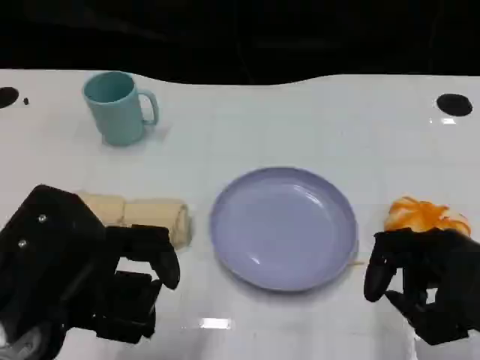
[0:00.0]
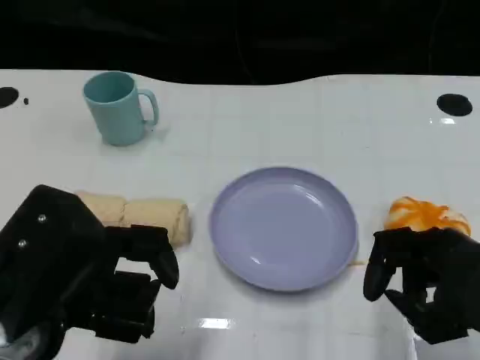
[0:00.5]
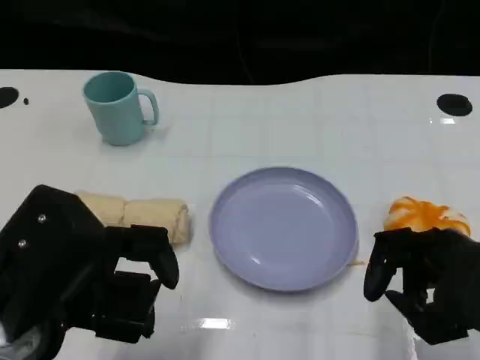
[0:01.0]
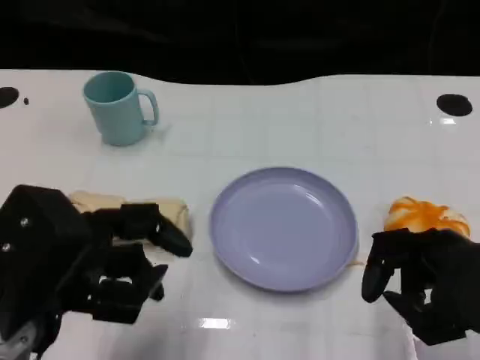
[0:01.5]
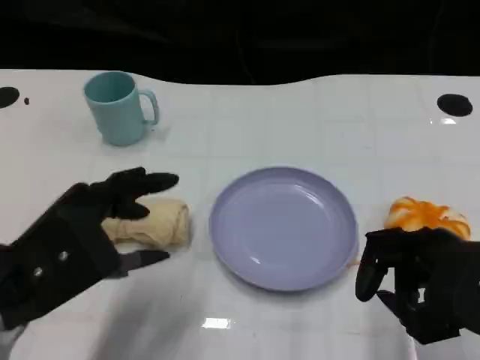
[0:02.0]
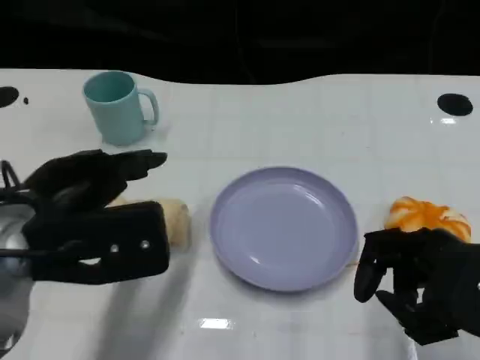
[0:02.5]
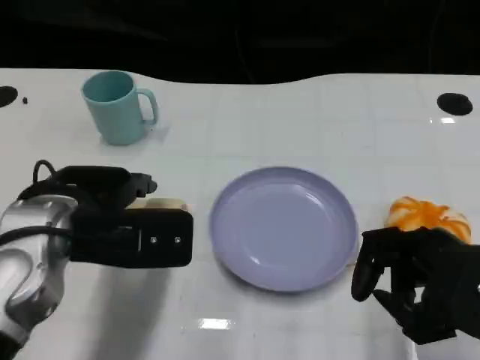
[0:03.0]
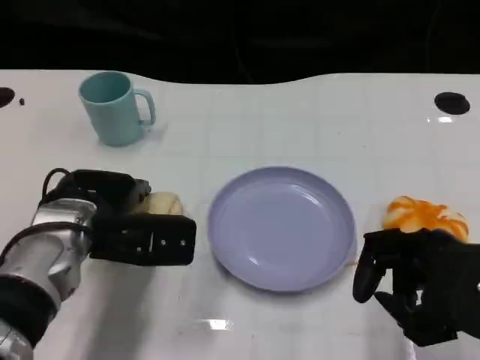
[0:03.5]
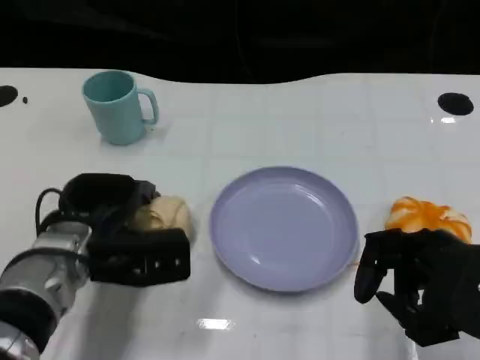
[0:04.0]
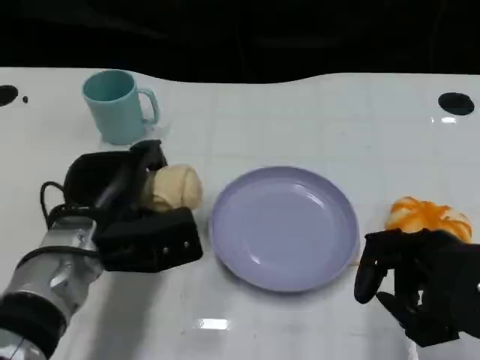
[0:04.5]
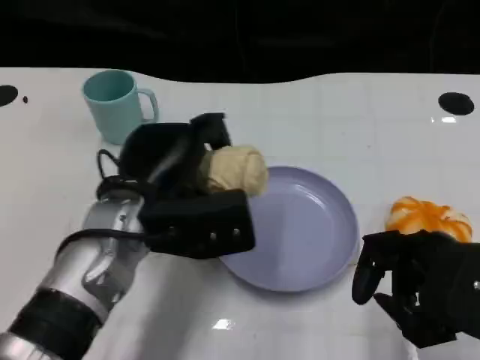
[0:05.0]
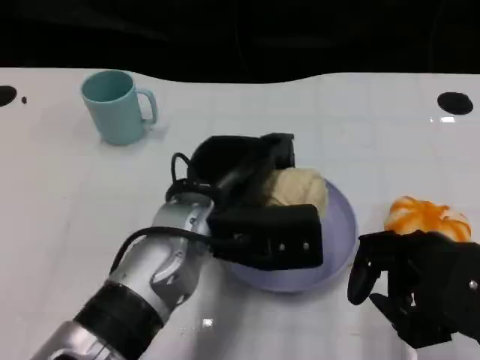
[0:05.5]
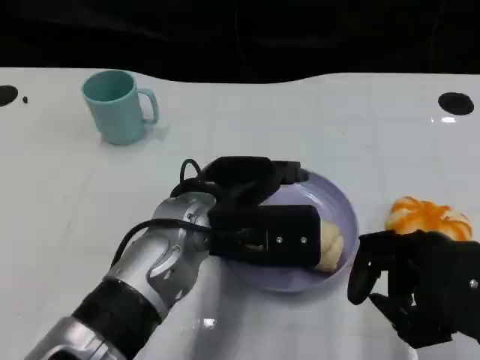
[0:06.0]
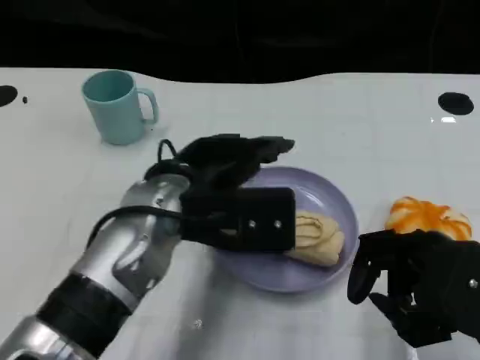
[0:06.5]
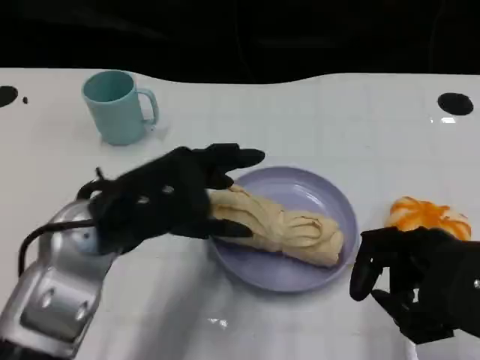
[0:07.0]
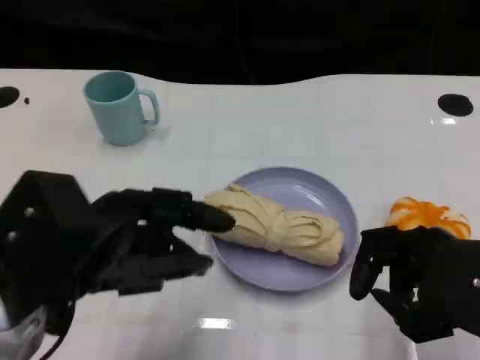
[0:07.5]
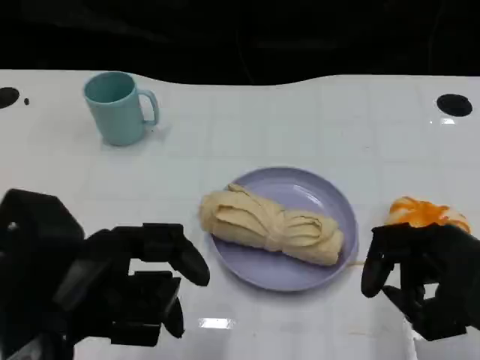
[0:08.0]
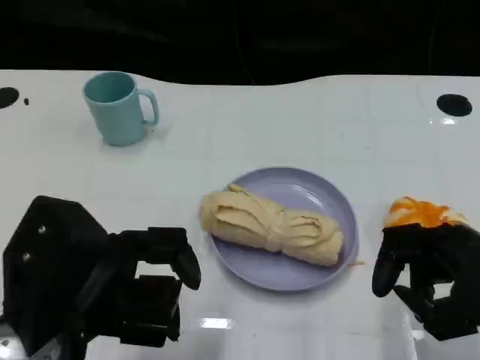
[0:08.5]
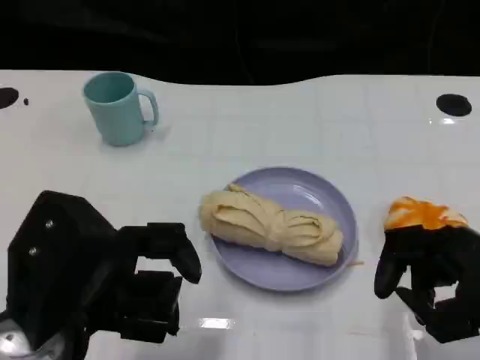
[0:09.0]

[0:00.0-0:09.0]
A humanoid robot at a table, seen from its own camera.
Task of the whole recording: Grasp the towel on the left side of the plate with the left hand and place it into the plate.
0:02.0 to 0:04.5: The left hand travels forward, downward and to the right by about 15 cm.
0:04.5 to 0:07.0: The left hand travels upward by roughly 10 cm, and goes to the right and returns, approximately 10 cm each way.
0:07.0 to 0:09.0: The left hand shifts roughly 10 cm backward.

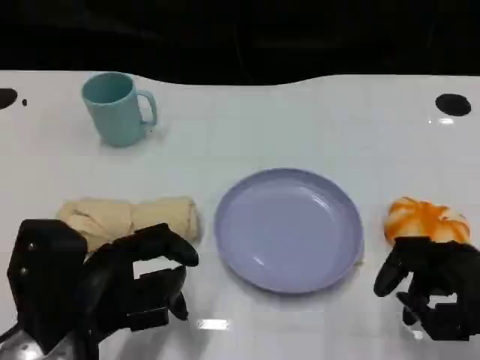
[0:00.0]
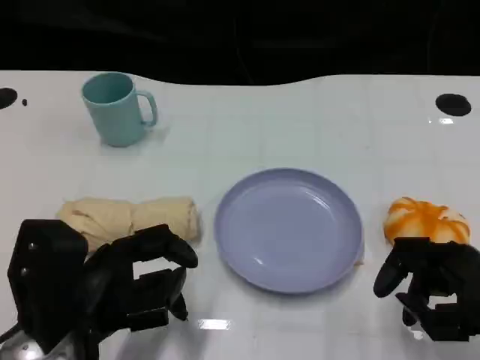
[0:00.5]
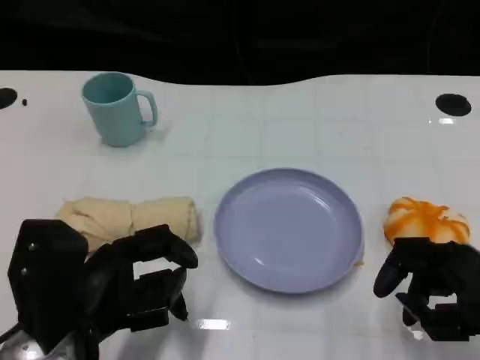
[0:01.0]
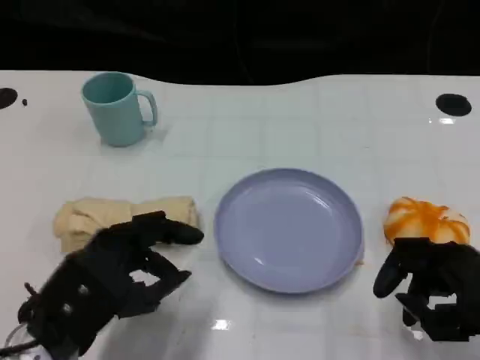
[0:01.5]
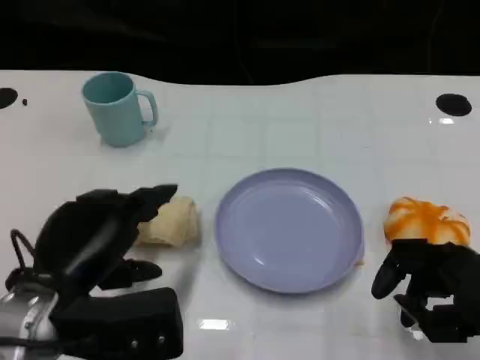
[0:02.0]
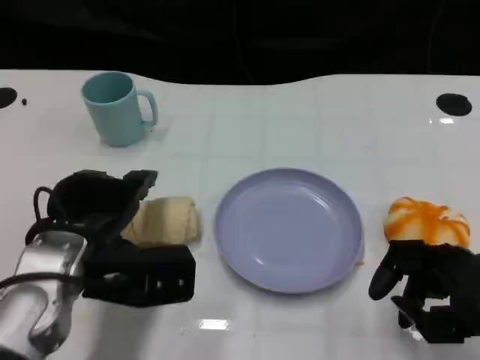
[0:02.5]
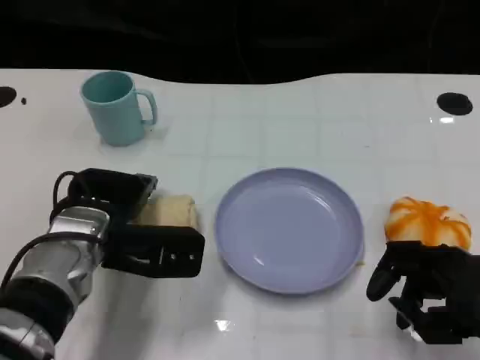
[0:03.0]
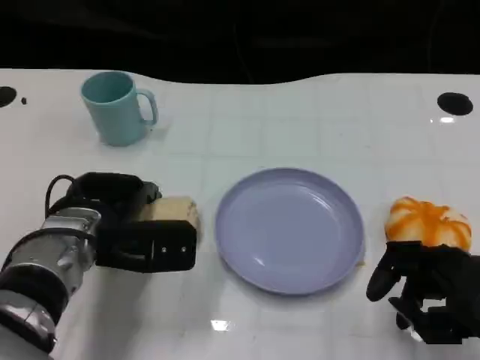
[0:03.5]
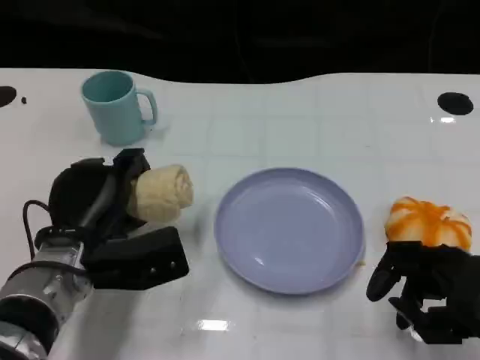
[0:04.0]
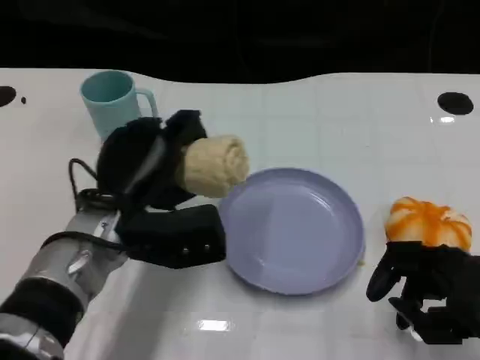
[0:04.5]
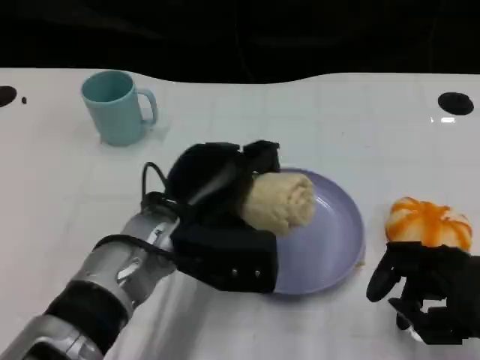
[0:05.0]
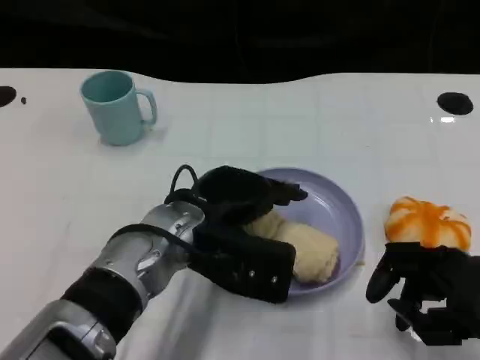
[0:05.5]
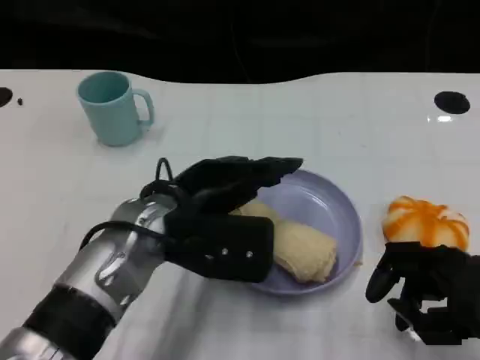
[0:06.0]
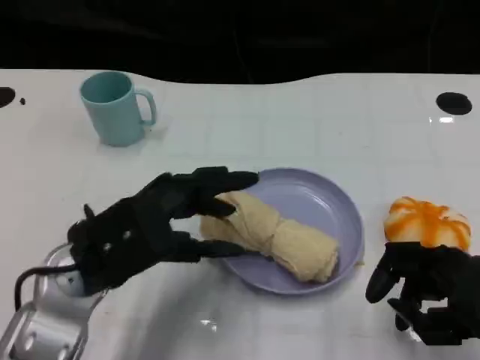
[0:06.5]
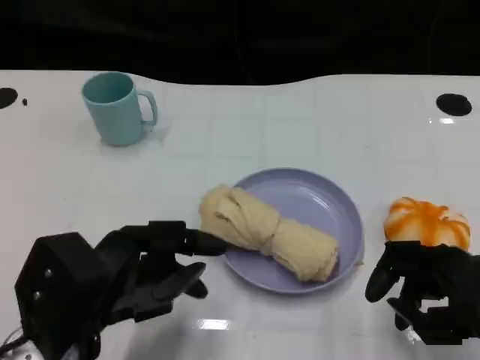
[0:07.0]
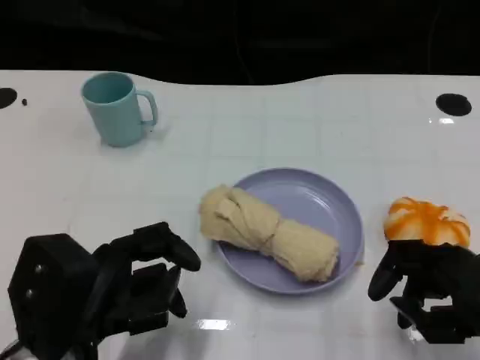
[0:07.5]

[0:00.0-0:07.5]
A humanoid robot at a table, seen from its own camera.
Task of the whole recording: Grasp the towel on the left side of the plate with the left hand and place it into the plate.
0:02.0 to 0:04.0: The left hand heads forward and downward, covering approximately 10 cm.
0:04.0 to 0:05.5: The left hand shifts some 10 cm to the right and upward.
0:05.5 to 0:07.5: The left hand travels to the left and backward by about 15 cm.
